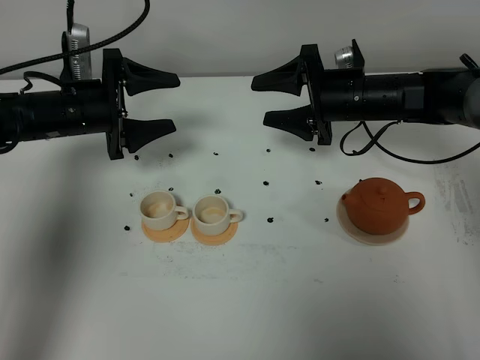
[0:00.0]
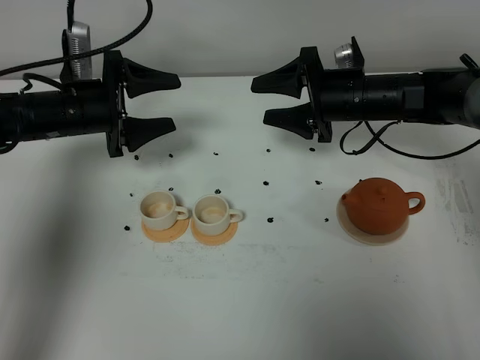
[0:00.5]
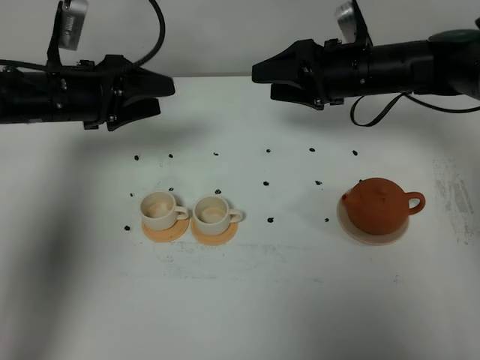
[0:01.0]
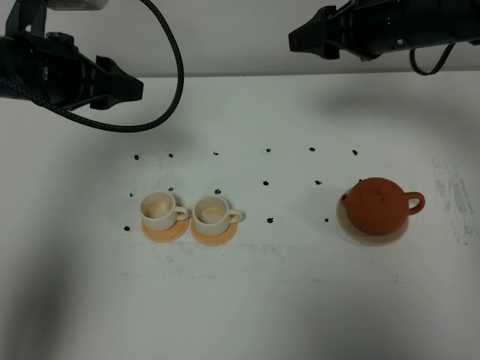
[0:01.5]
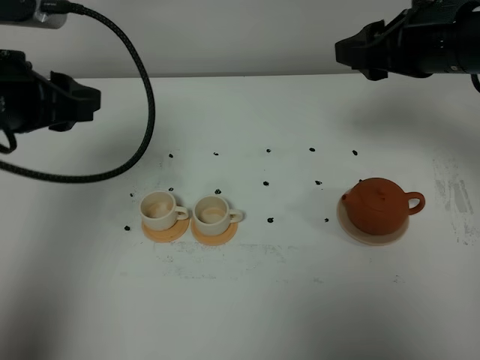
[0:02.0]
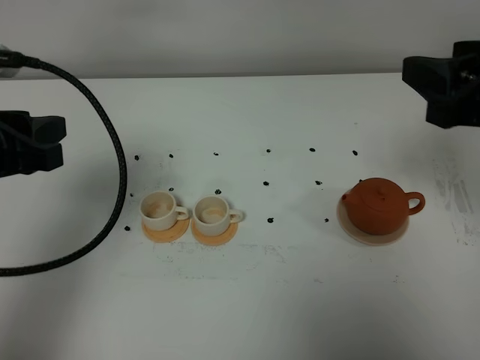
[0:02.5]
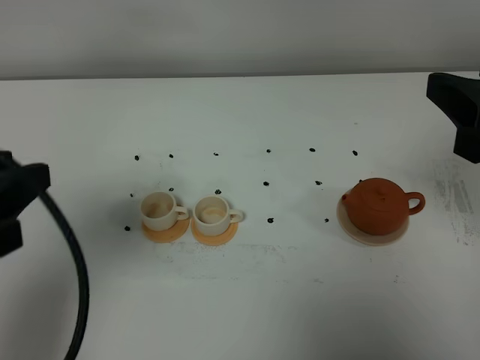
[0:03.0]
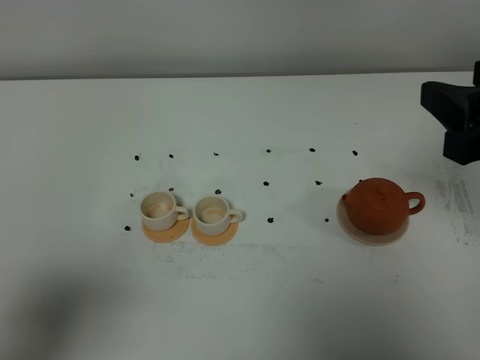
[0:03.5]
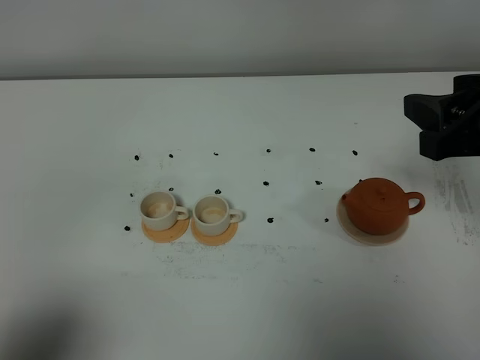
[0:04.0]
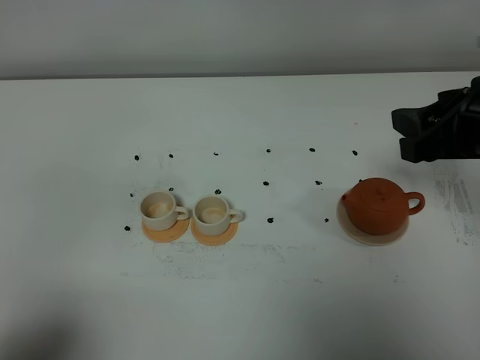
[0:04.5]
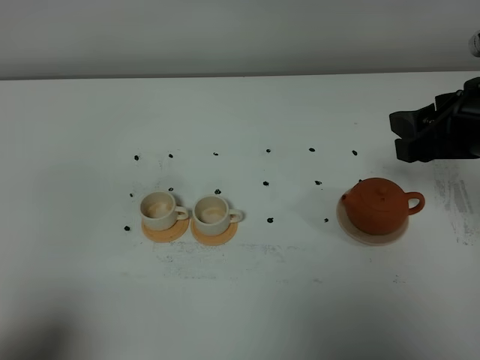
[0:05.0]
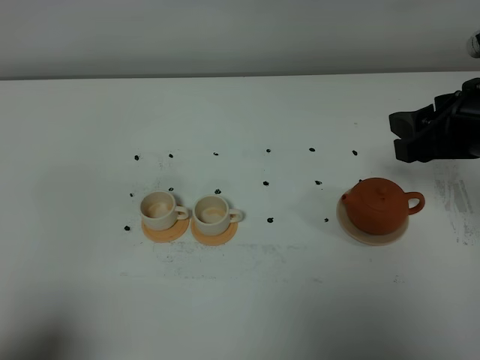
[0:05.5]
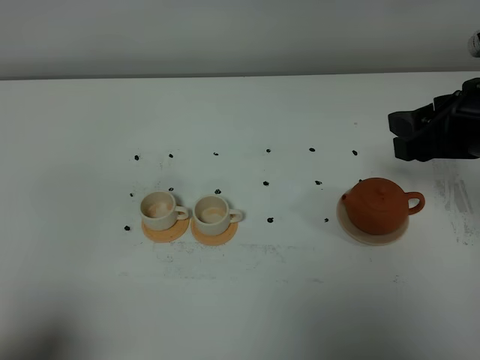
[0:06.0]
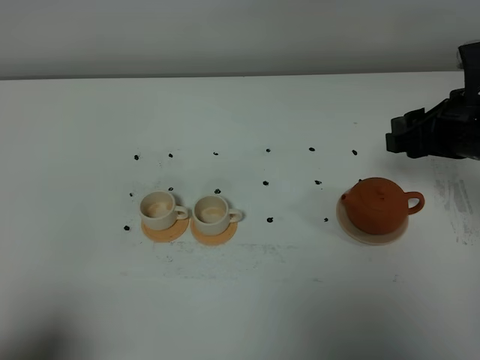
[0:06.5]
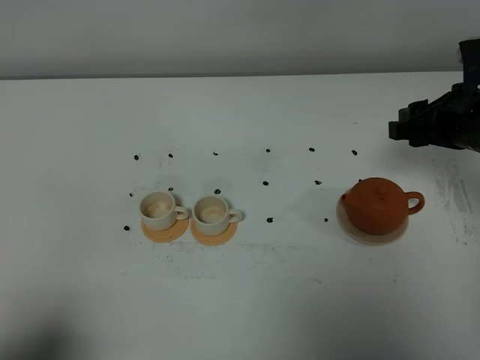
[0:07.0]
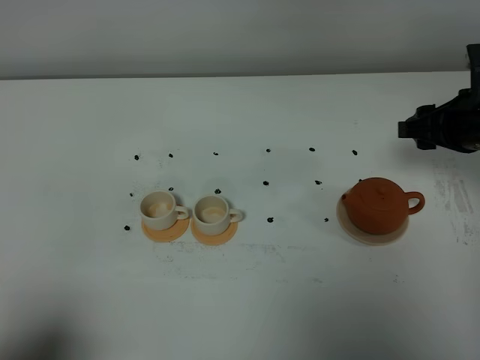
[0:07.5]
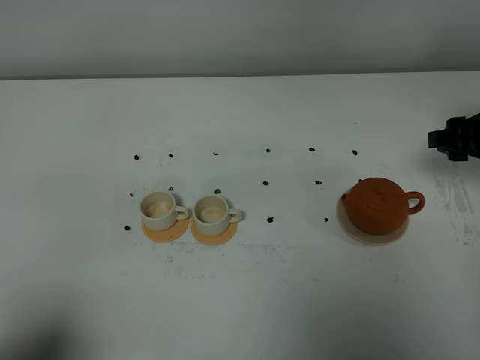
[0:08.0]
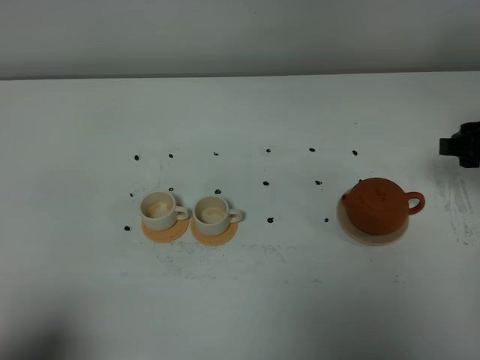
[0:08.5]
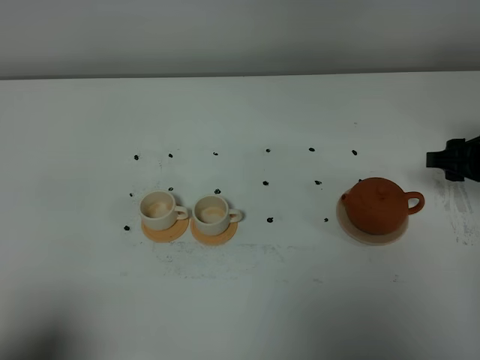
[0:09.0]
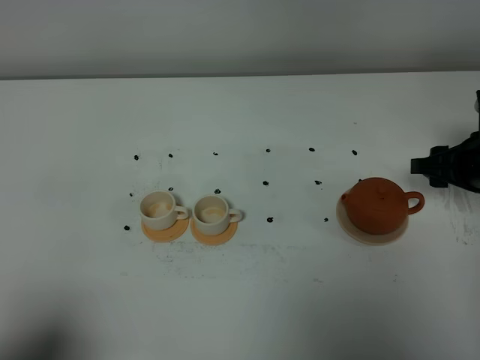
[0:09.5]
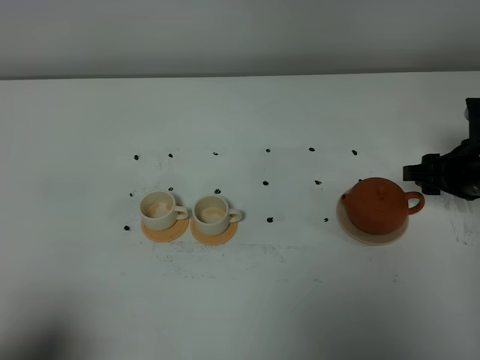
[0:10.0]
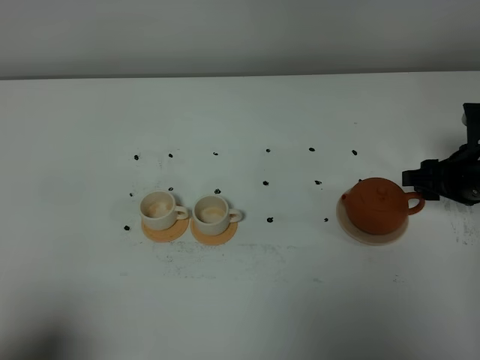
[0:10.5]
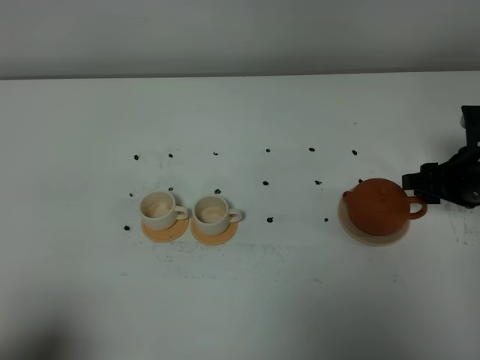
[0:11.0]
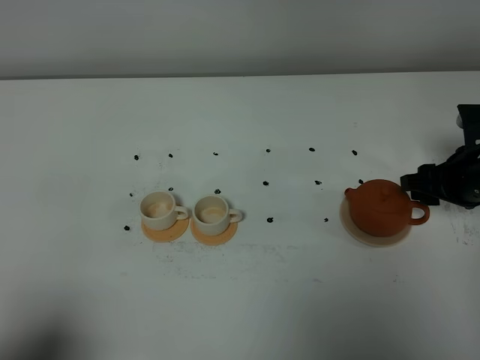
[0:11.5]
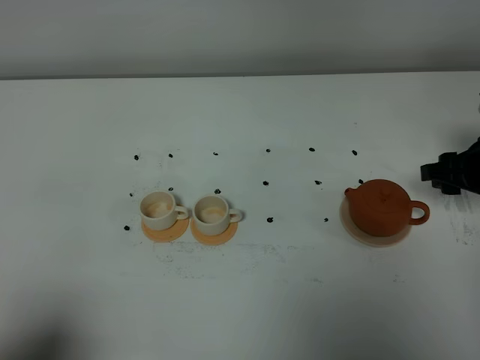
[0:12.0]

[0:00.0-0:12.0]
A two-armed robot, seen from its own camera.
Task of the whole recording: grasp the brown teapot and pour the tea into the two white teacups one by one, put the brown teapot back in its original place.
0:00.0 to 0:02.0: Both grippers move upward and backward, about 20 cm.
0:02.0 to 0:04.0: The right gripper travels backward by approximately 10 cm, while the left gripper moves backward, about 25 cm, and closes up.
0:04.0 to 0:06.0: The right gripper shifts by some 5 cm.
0:06.0 to 0:08.0: The right gripper travels downward, to the right and forward by roughly 15 cm.
0:08.0 to 0:10.0: The right gripper travels downward by approximately 5 cm.
0:10.0 to 0:12.0: The grippers stay close to where they were, moving slightly.

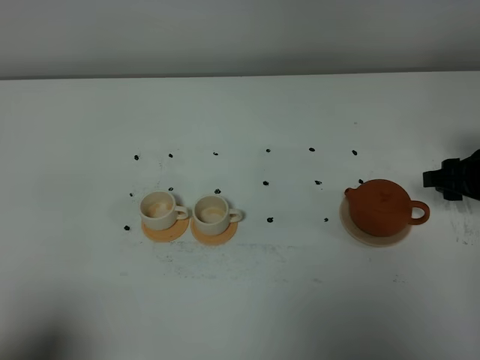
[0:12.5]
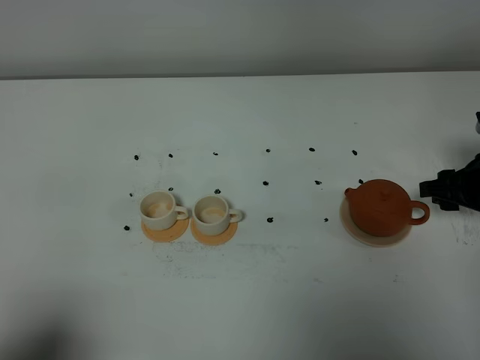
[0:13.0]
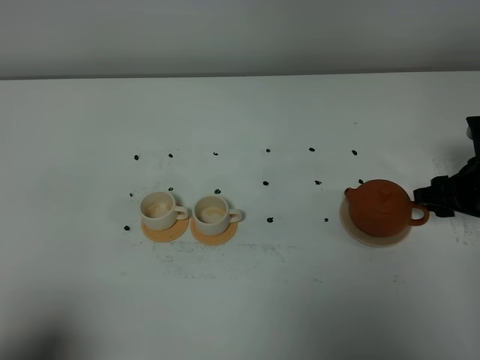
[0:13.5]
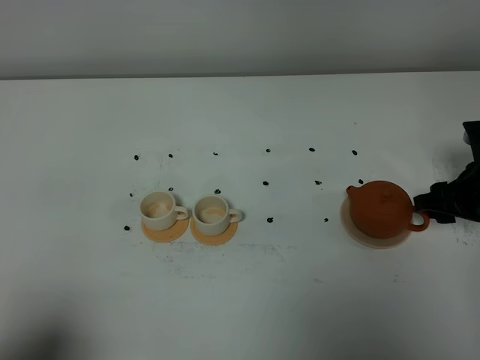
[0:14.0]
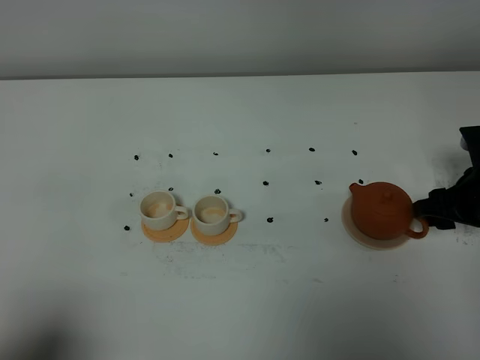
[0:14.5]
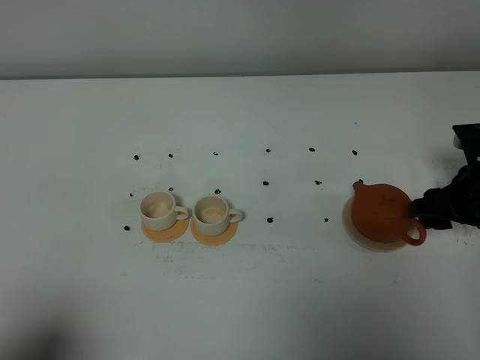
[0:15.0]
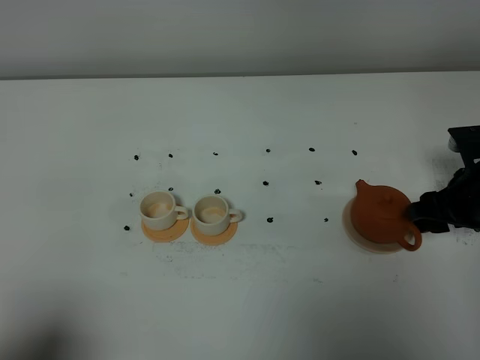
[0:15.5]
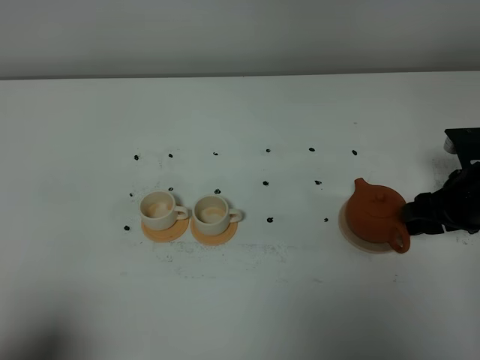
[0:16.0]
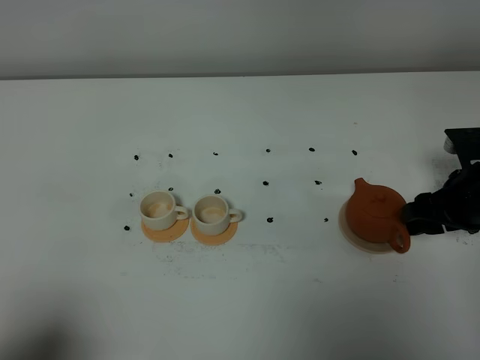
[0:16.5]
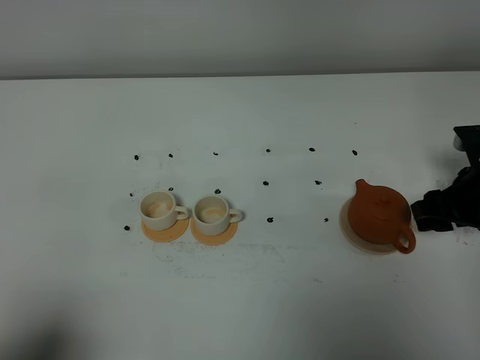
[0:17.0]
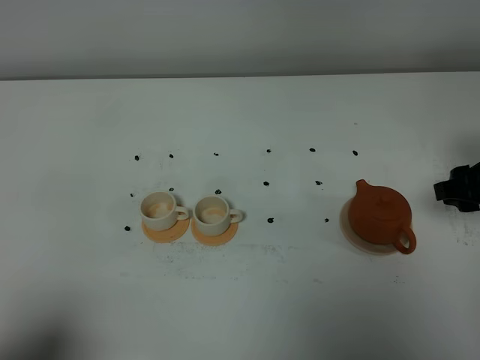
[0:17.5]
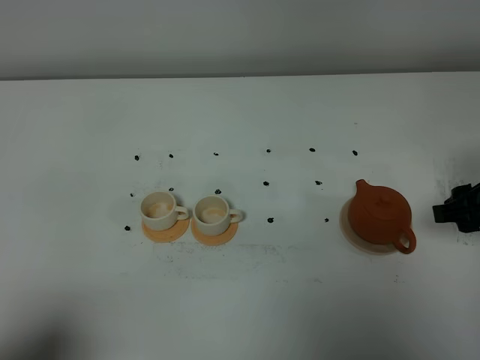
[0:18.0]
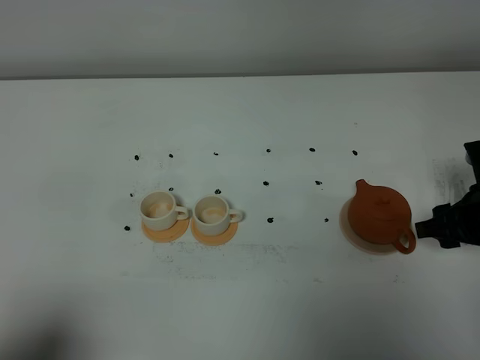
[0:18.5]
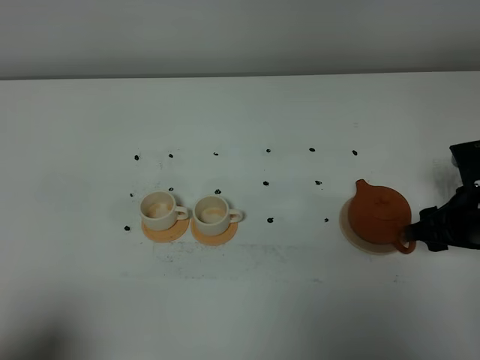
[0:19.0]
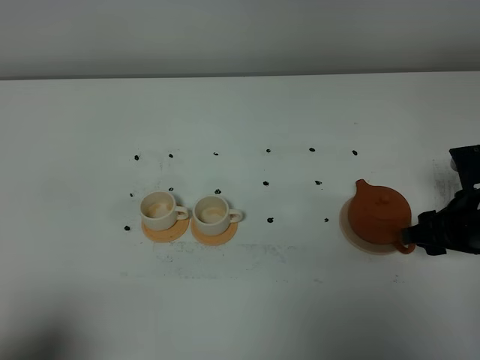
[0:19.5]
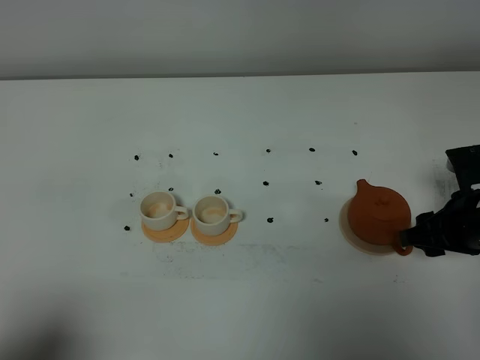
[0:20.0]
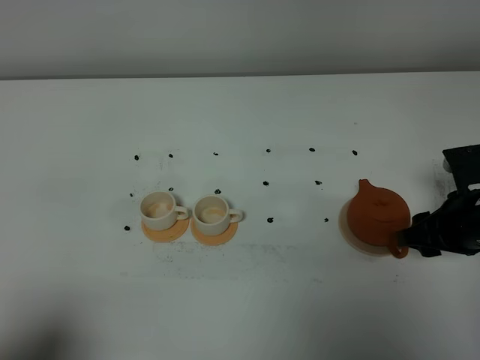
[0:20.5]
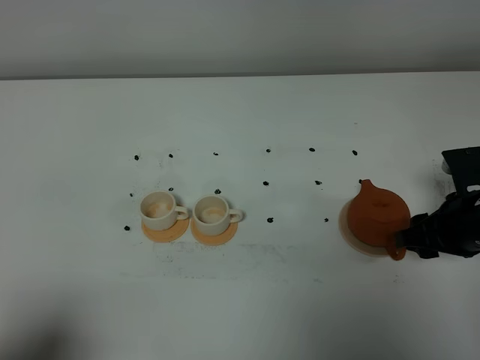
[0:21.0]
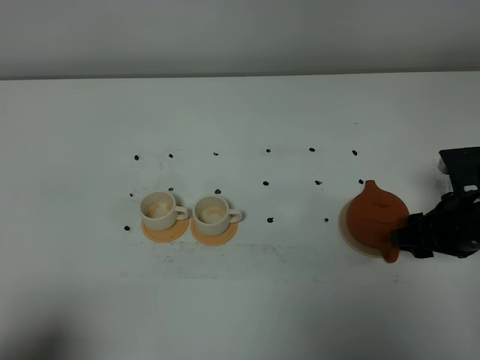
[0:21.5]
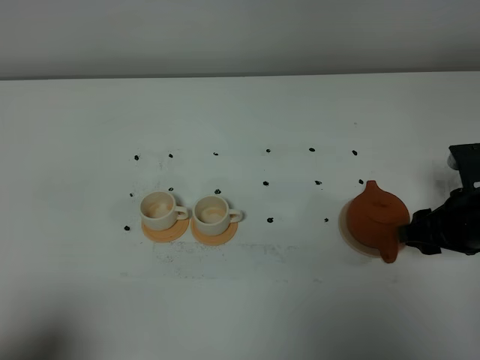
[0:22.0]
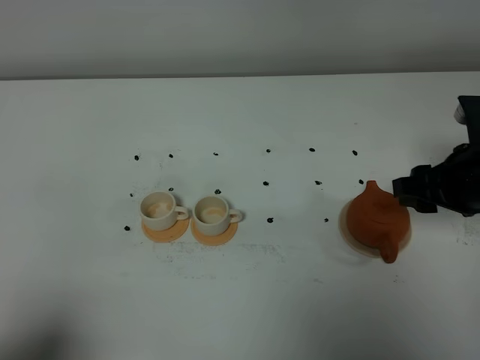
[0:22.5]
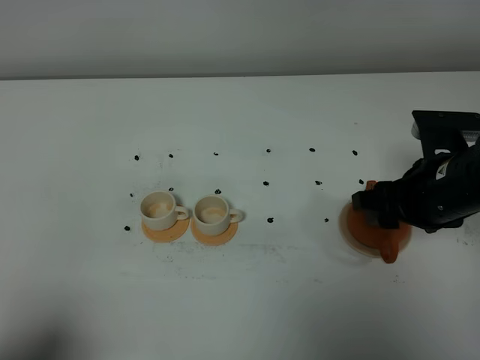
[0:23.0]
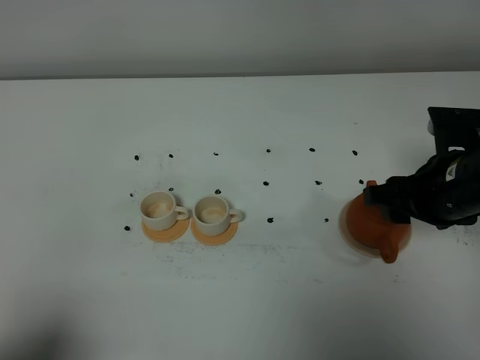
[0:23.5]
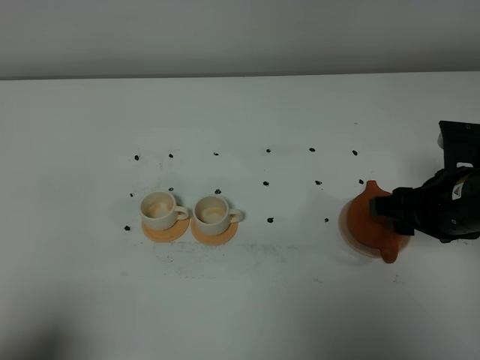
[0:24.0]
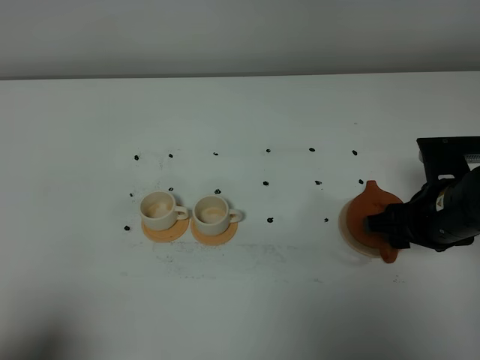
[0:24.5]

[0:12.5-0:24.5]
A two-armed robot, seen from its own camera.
Task of the whole recording: grasp the brown teapot and pour the tea into the two white teacups one by one, put the brown teapot back in its original place.
0:12.5 to 0:14.5: The grippers make only small movements.
0:14.5 to 0:16.5: The grippers make only small movements.
0:18.5 to 0:20.5: The grippers move only a little.
0:20.5 to 0:22.5: The right gripper goes approximately 5 cm upward.
0:22.5 to 0:24.5: The right gripper moves approximately 5 cm.

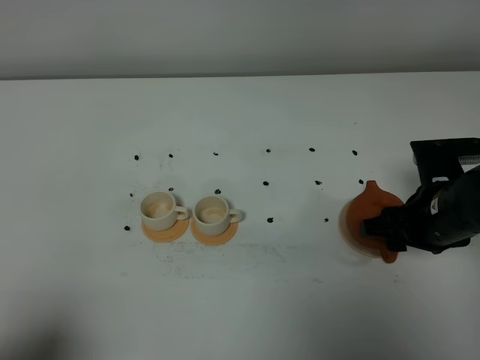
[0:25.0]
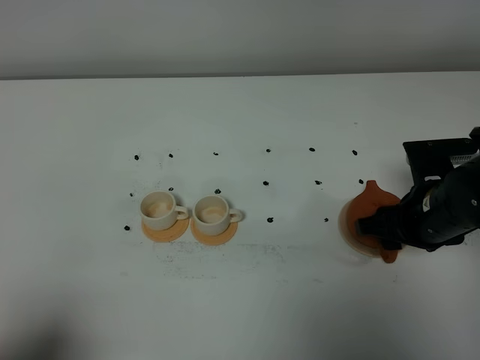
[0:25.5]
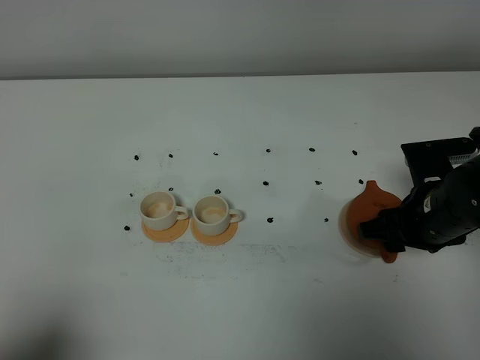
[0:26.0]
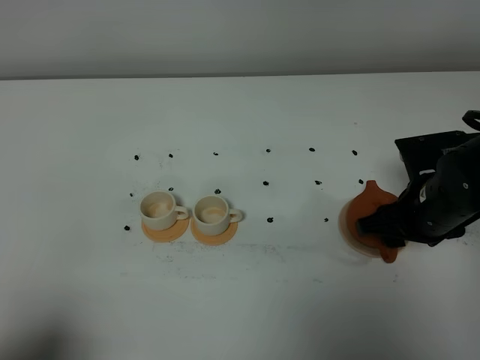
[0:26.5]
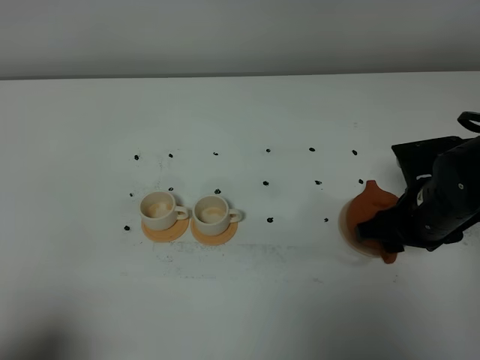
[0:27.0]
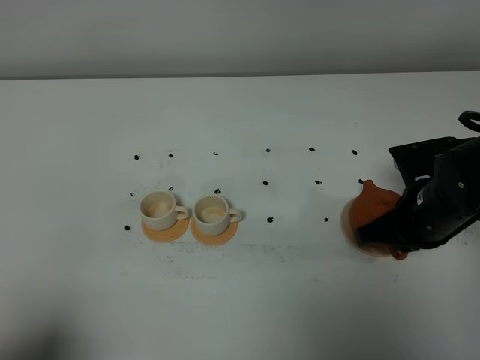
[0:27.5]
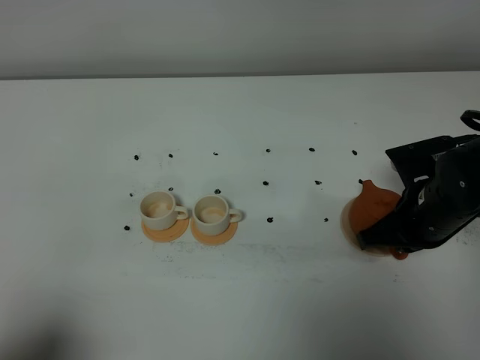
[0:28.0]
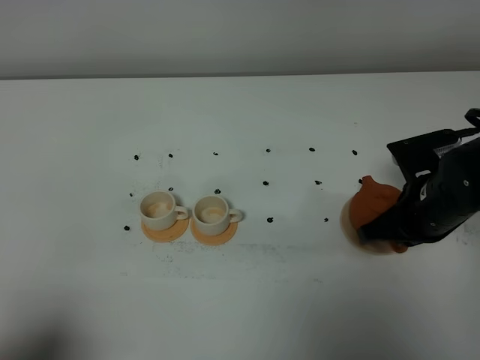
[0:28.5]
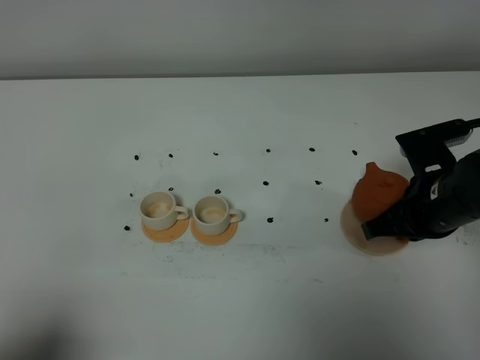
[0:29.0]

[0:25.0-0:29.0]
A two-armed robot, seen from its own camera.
Task of the whole recording: grasp the brown teapot and pour the tea into the two white teacups one by one, put the brown teapot back in its original place.
0:25.0 to 0:27.0: The grippers stay close to where they were, moving slightly.
0:27.0 to 0:29.0: The right gripper closes.
